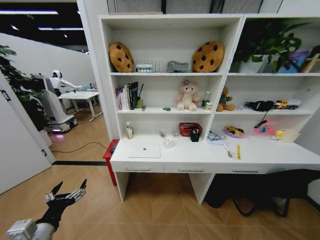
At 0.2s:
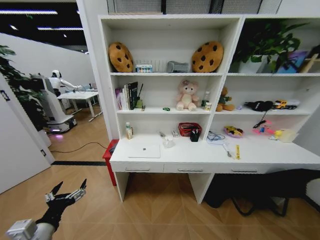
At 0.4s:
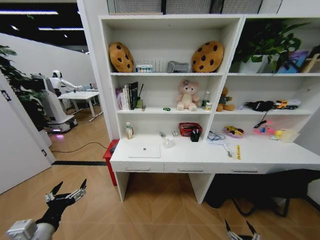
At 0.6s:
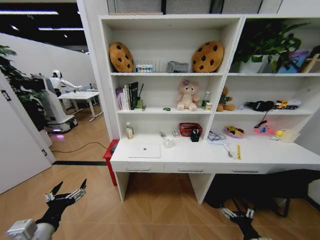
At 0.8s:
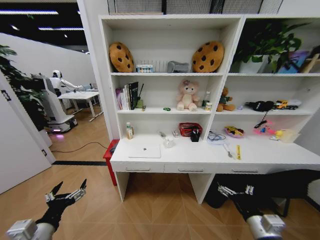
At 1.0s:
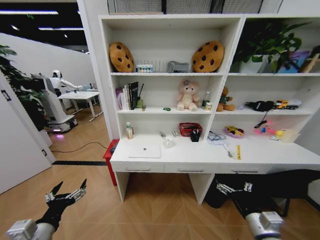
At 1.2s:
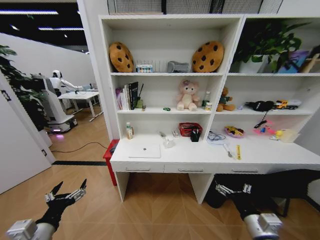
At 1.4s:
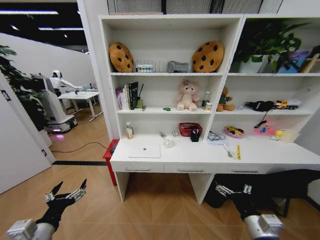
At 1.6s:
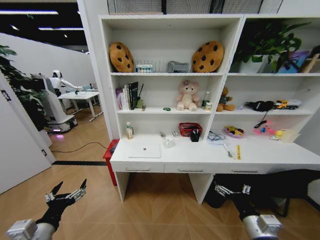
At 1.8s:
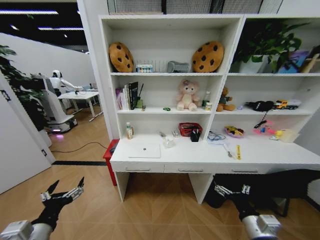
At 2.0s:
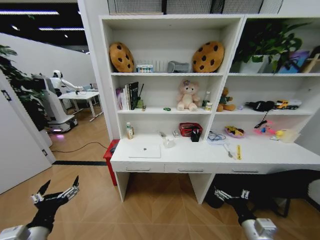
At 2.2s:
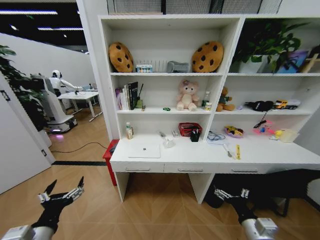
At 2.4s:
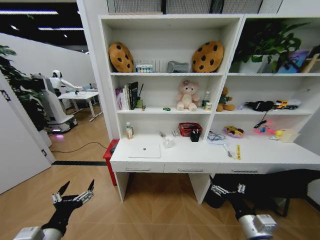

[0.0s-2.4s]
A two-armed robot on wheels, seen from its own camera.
Task of the whole recording: Organize the objects on the table.
0.0s to 1.2s: The right gripper goes some 35 cm upward.
1.2s to 2.4s: The grippers move only a little.

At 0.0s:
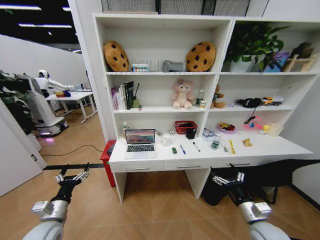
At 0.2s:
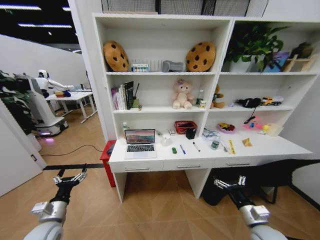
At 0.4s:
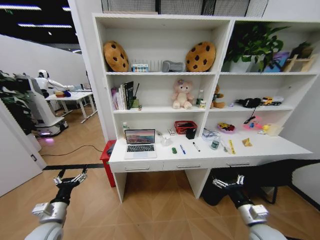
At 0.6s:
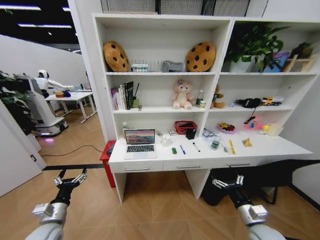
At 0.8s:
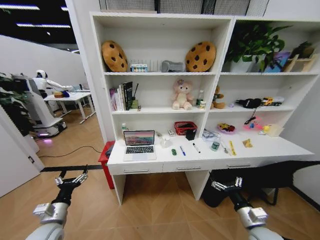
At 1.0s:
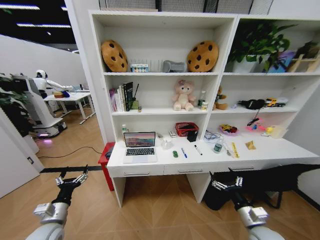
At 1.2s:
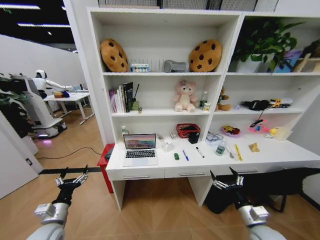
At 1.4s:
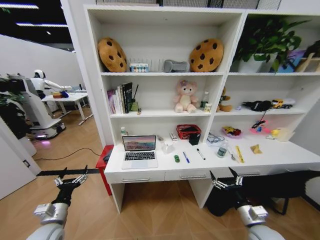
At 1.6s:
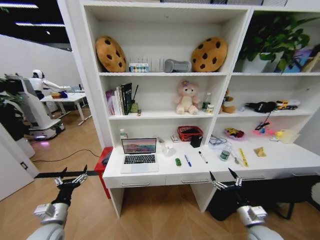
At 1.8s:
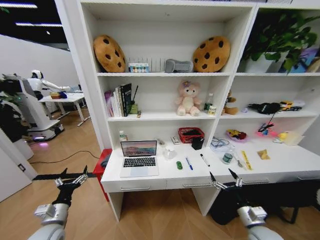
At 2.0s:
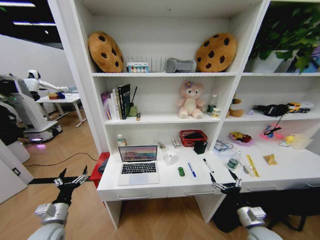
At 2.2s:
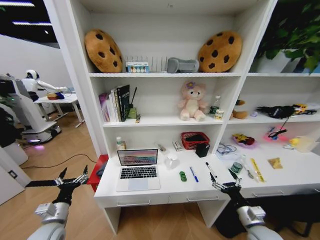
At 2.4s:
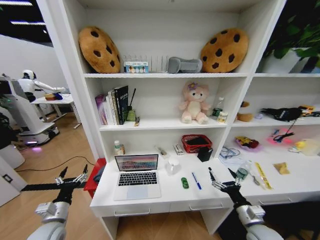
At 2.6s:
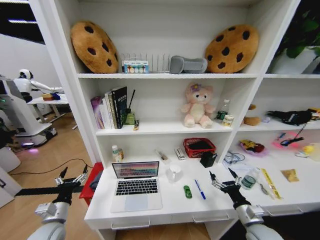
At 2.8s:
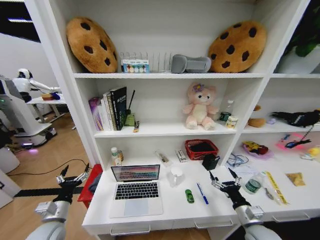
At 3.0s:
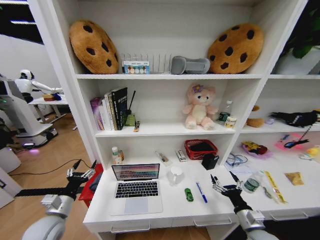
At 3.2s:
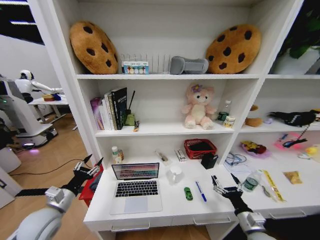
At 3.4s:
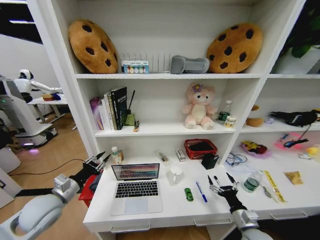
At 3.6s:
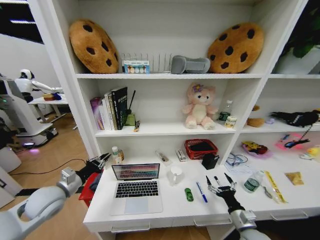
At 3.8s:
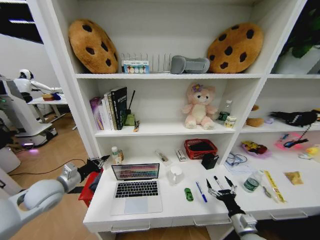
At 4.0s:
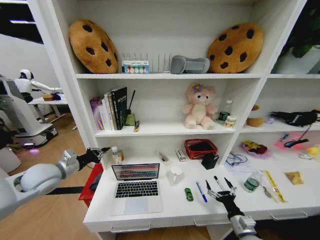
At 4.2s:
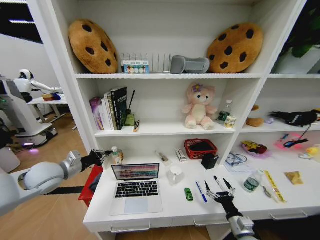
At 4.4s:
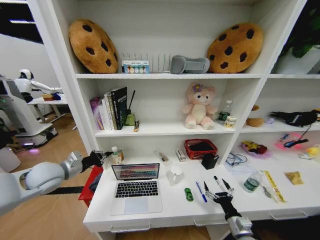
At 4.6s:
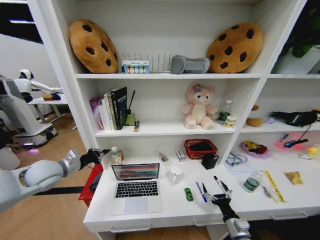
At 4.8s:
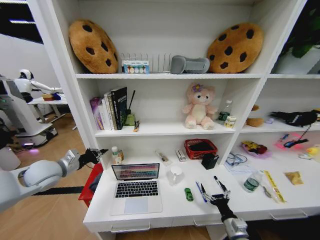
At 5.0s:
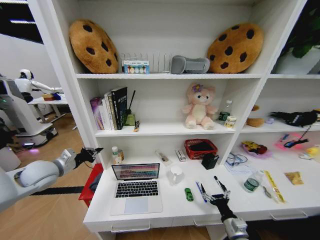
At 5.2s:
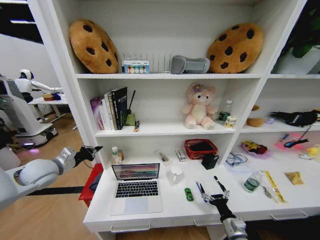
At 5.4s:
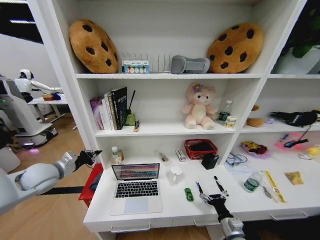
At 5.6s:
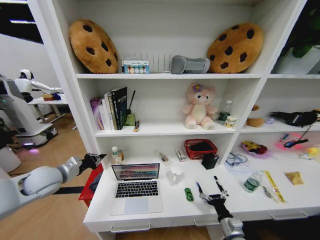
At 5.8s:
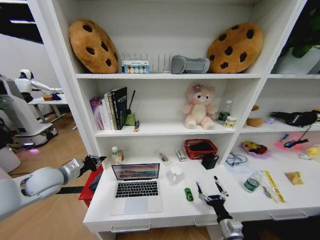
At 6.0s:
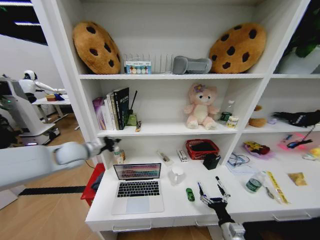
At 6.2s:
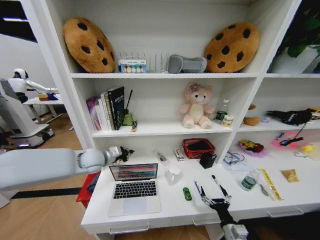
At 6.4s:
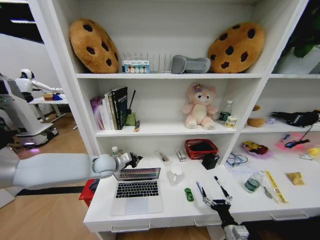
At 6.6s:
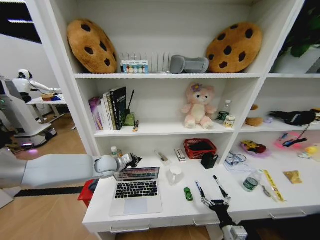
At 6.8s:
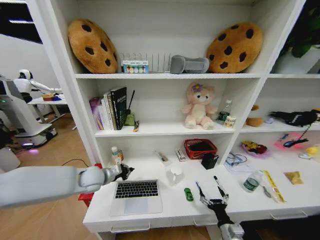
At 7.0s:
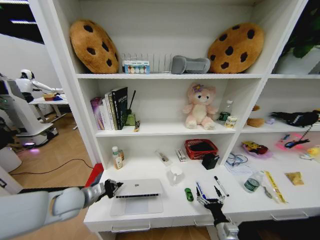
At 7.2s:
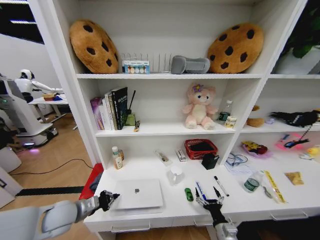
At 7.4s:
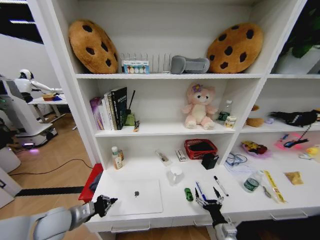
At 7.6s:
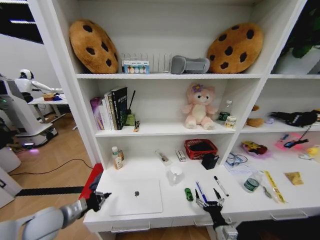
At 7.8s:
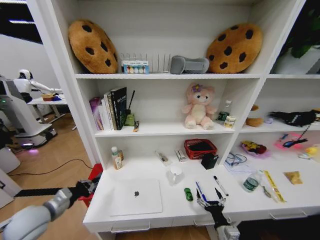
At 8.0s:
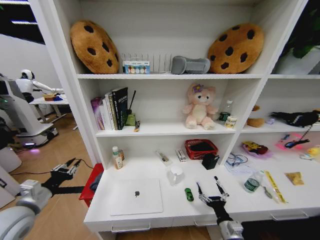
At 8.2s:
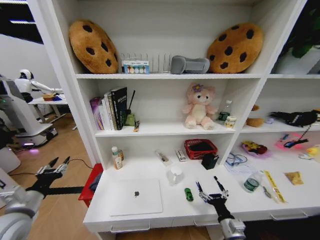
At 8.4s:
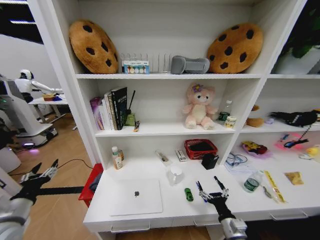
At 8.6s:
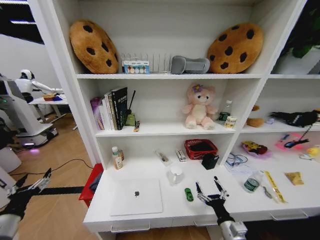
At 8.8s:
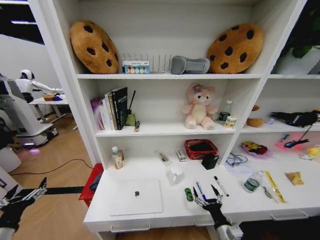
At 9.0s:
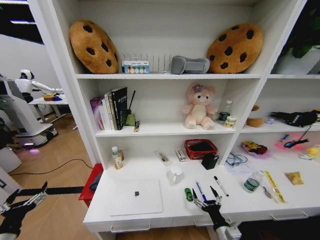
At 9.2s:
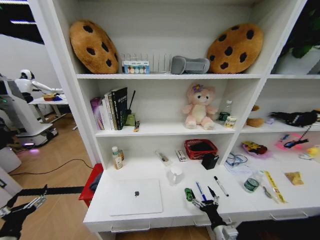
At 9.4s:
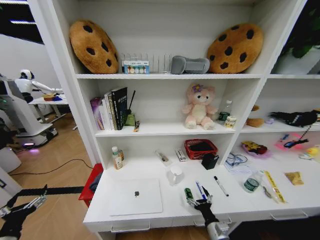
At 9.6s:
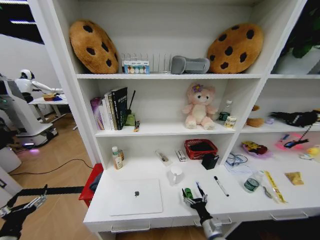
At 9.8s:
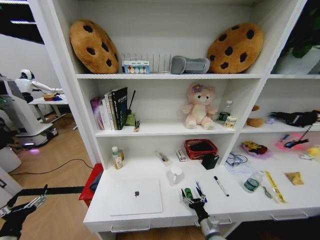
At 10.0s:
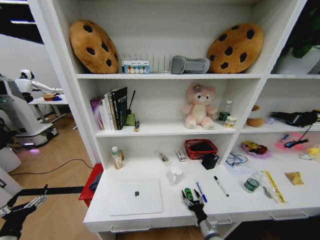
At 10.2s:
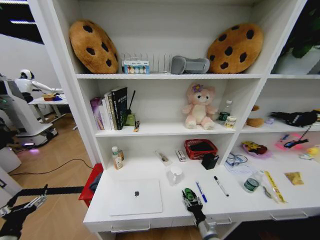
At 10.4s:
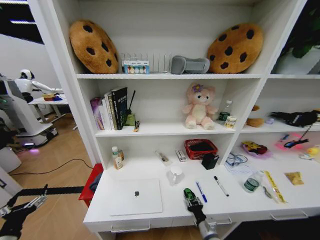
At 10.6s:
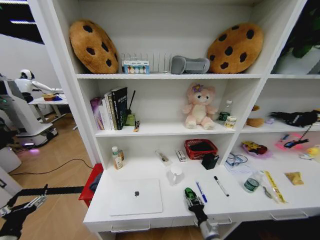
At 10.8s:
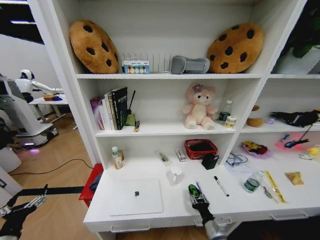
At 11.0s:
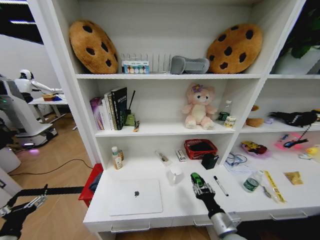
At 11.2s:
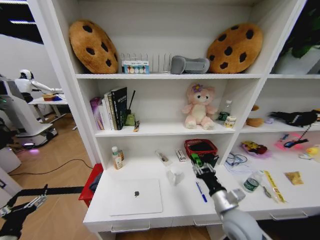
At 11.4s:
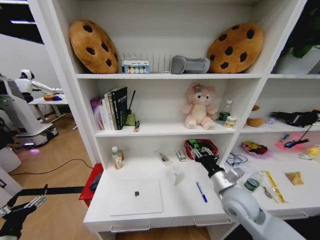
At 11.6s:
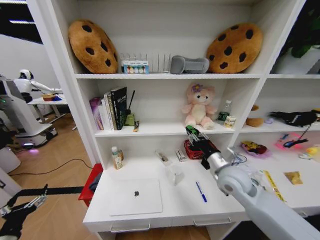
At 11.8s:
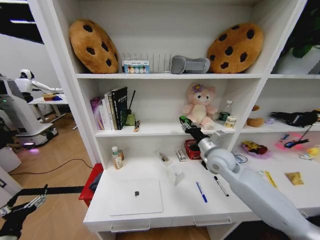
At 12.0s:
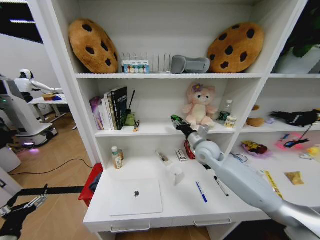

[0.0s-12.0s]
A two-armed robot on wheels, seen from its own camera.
Task of the whole recording: Organize the objects on the table.
3.0s to 4.4s: The left gripper heads upward and forward, covering some 20 cm, and closes its fingers. Meanwhile the right gripper moves roughly 5 cm.
6.0s to 7.6s: The left gripper moves backward and downward, some 20 cm.
7.6s to 9.0s: The left gripper travels backward and to the left by about 15 cm, and opens.
9.0s to 10.4s: The right gripper moves downward, some 5 cm, and closes its fingers.
10.4s to 12.0s: The right gripper goes some 40 cm upward and forward.

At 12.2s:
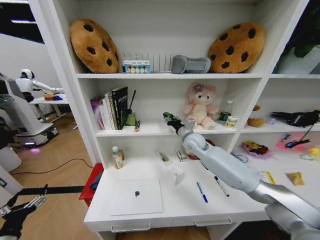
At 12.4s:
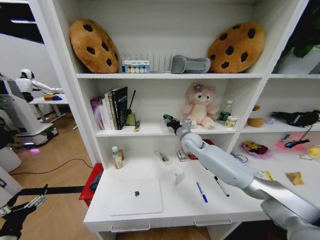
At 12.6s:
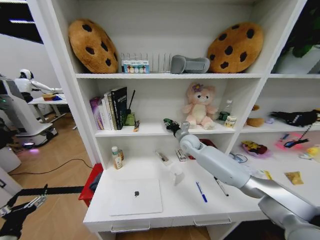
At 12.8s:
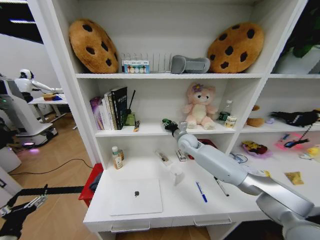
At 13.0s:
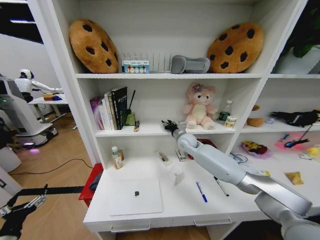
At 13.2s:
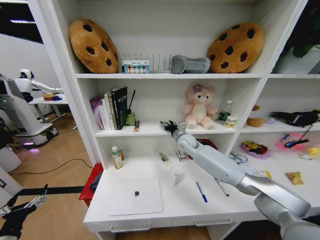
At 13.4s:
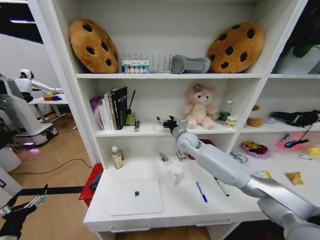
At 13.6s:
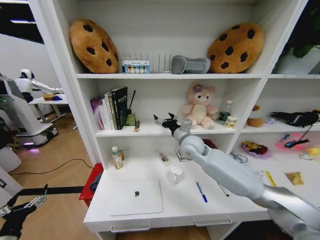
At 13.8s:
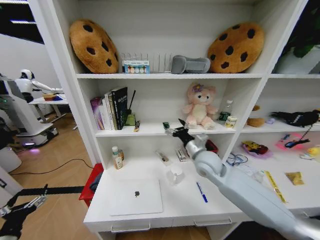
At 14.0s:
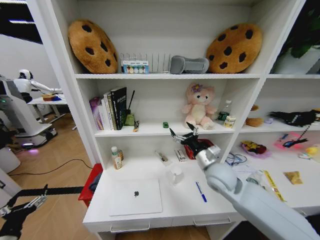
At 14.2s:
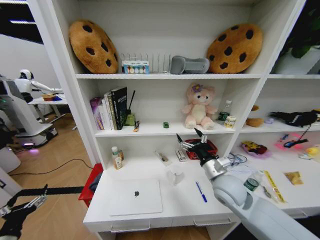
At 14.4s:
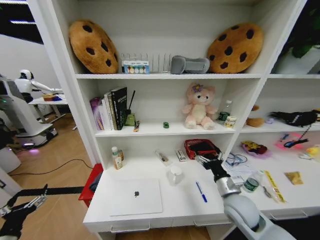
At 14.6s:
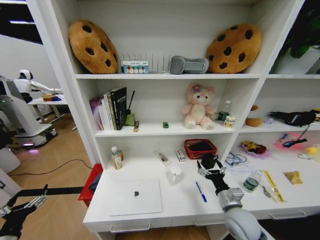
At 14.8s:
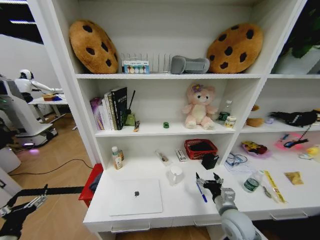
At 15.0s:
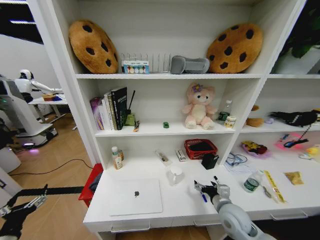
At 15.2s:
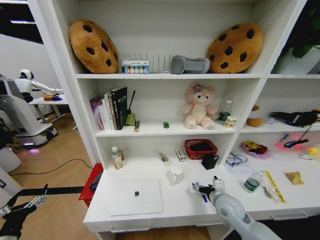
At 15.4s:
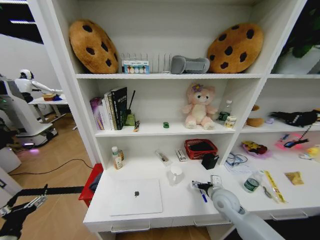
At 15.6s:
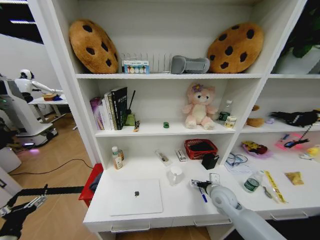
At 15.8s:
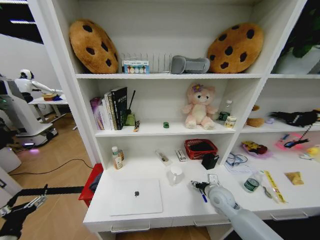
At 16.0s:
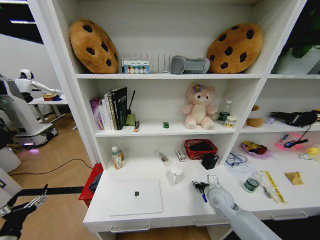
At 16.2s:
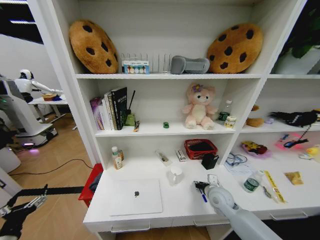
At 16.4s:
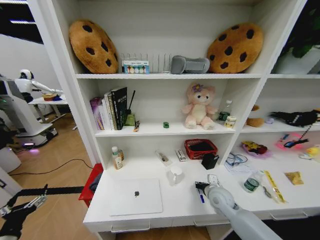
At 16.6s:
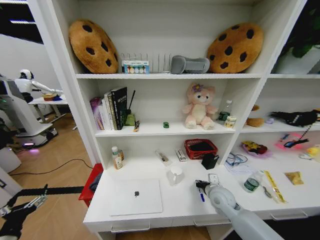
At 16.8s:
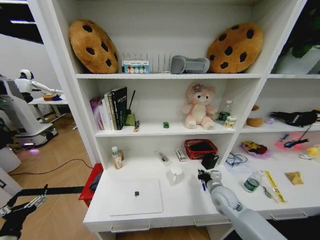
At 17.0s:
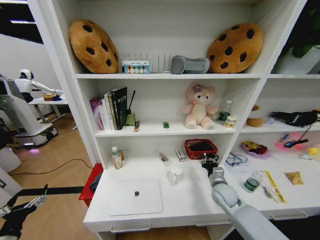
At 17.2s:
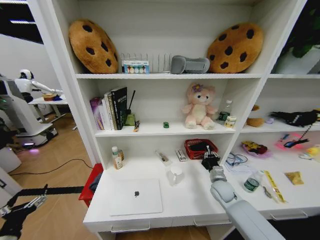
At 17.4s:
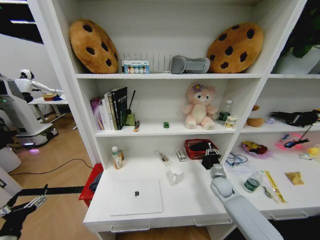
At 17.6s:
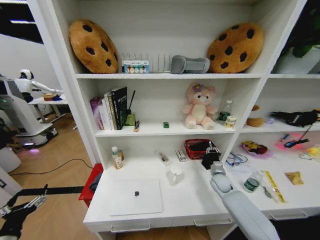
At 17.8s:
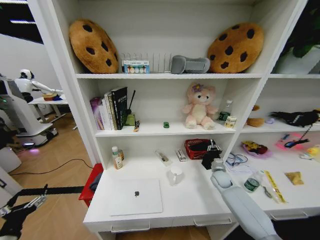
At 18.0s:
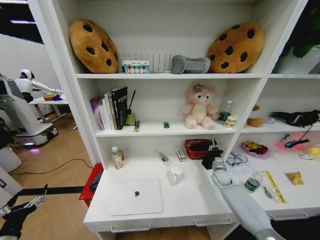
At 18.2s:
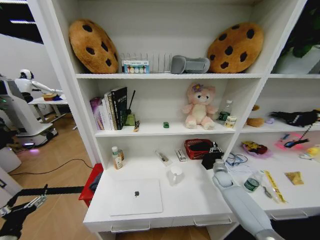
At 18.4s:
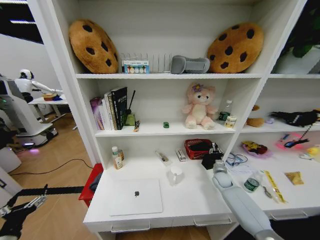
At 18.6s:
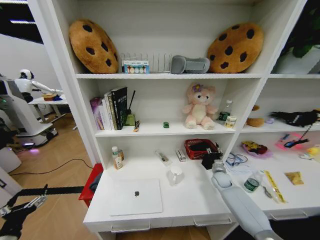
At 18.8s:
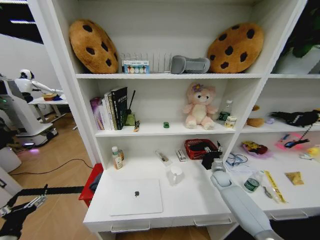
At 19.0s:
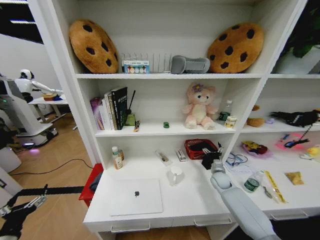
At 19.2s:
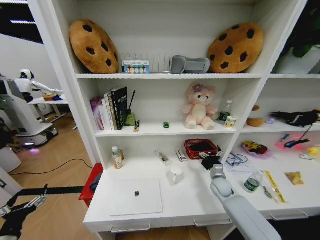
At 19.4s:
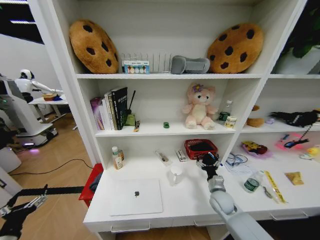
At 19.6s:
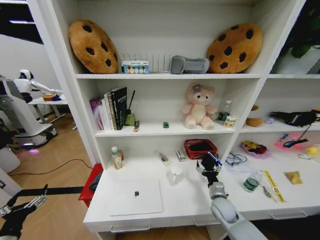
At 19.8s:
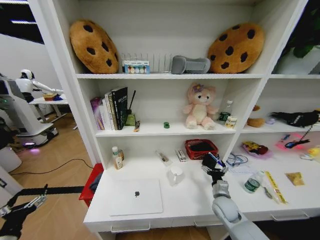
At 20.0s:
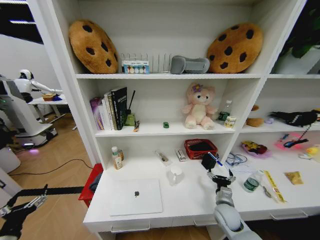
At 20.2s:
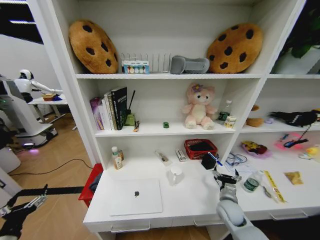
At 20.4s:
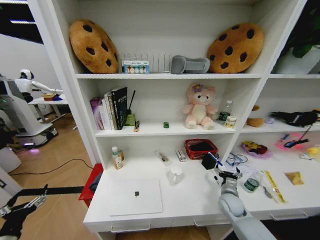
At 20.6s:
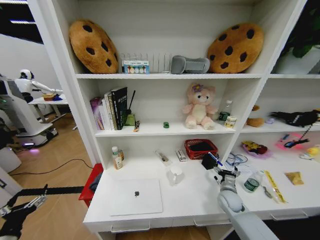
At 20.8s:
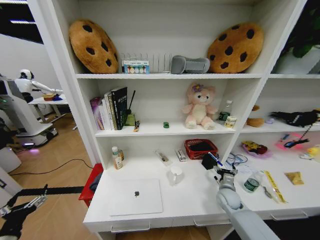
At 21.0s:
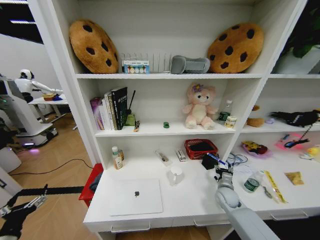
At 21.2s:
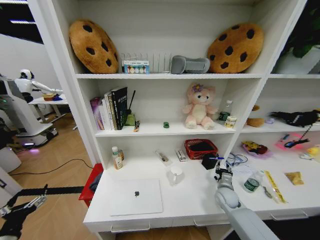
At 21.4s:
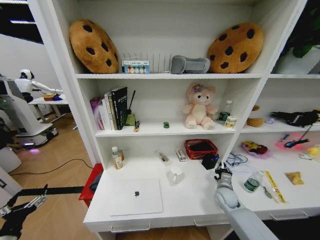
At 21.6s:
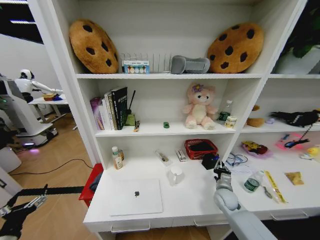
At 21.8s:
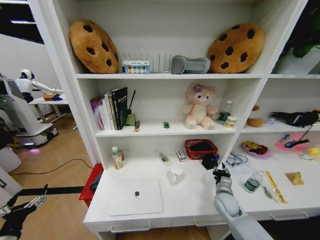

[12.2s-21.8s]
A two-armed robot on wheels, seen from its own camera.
Task of the whole recording: Organize the objects on the table.
12.2s to 13.8s: The right gripper is displaced backward by about 10 cm, and opens up.
13.8s to 15.4s: The right gripper shifts some 20 cm downward, to the right and backward.
15.4s to 17.0s: The right gripper ends up some 5 cm from where it was, and closes up.
17.0s to 18.6s: The right gripper shifts approximately 15 cm forward, to the right and downward.
18.6s to 20.2s: The right gripper moves backward, about 15 cm, and opens its fingers.
20.2s to 21.8s: The right gripper closes.
